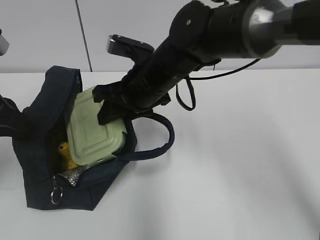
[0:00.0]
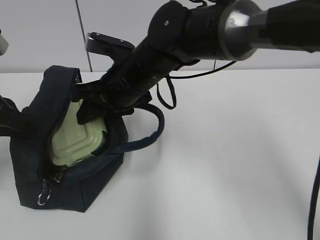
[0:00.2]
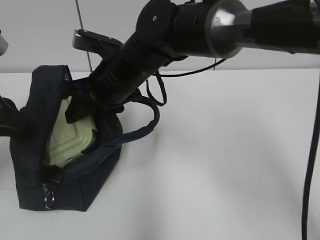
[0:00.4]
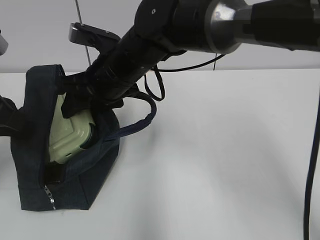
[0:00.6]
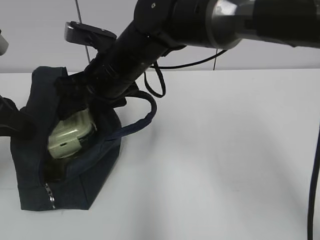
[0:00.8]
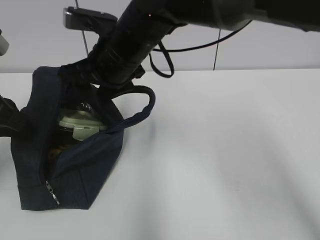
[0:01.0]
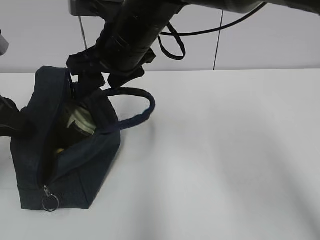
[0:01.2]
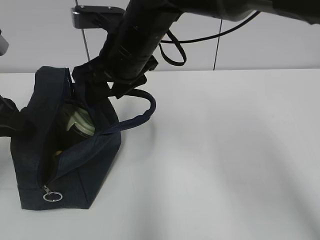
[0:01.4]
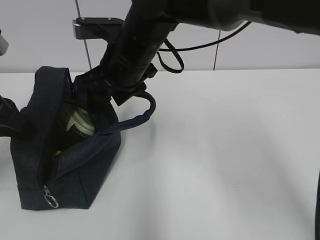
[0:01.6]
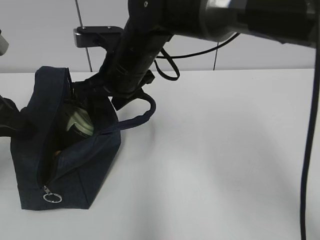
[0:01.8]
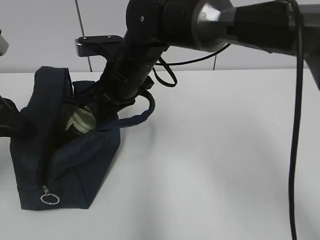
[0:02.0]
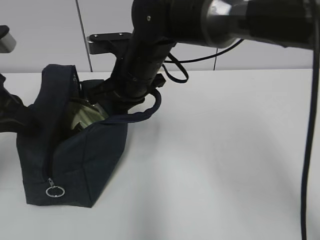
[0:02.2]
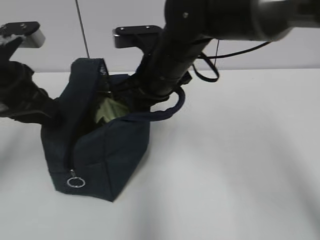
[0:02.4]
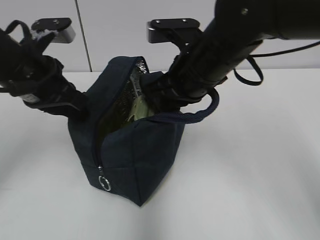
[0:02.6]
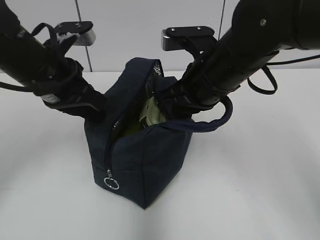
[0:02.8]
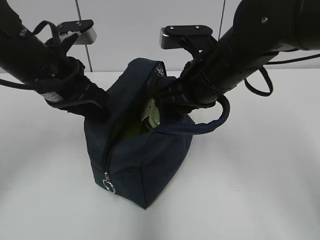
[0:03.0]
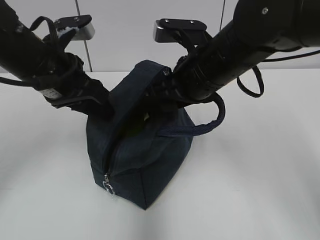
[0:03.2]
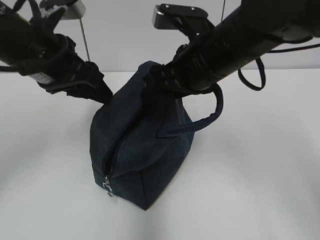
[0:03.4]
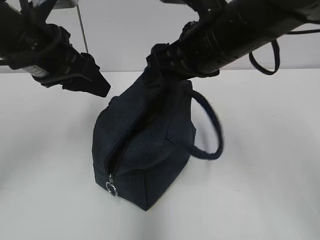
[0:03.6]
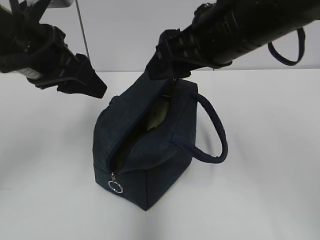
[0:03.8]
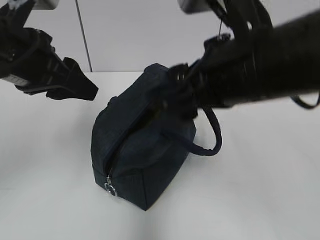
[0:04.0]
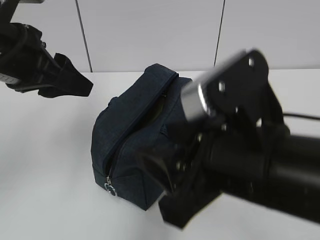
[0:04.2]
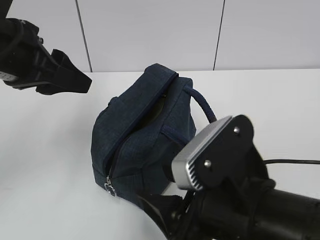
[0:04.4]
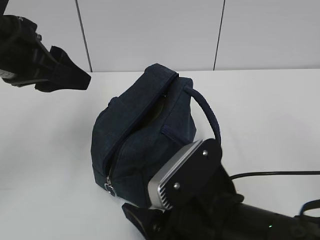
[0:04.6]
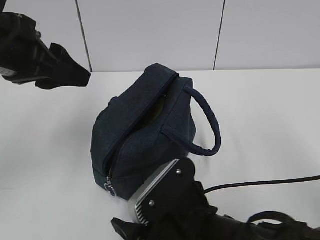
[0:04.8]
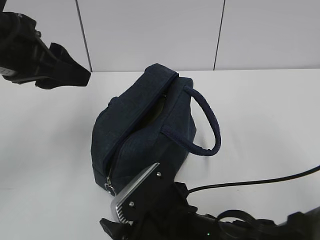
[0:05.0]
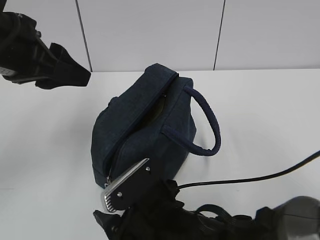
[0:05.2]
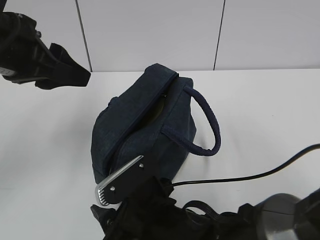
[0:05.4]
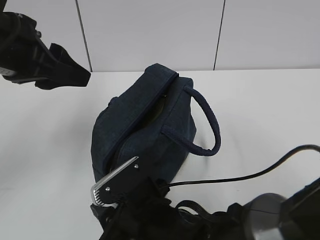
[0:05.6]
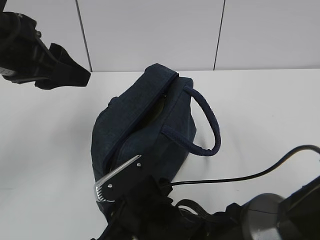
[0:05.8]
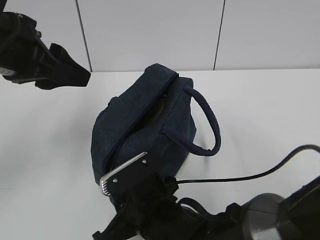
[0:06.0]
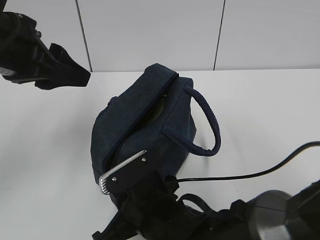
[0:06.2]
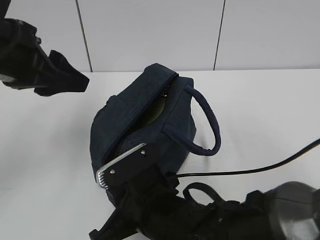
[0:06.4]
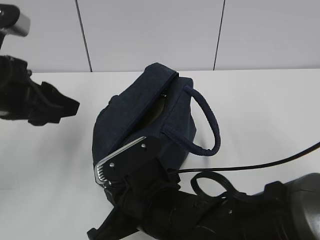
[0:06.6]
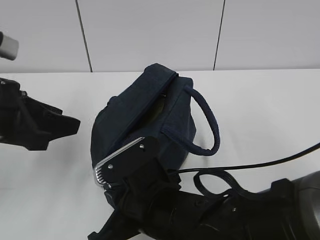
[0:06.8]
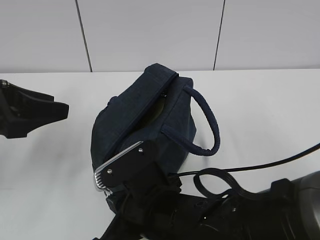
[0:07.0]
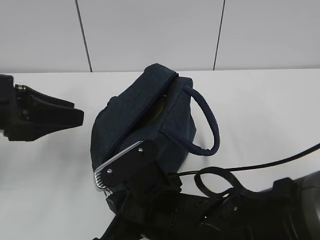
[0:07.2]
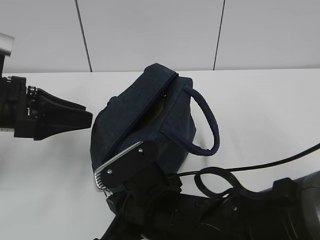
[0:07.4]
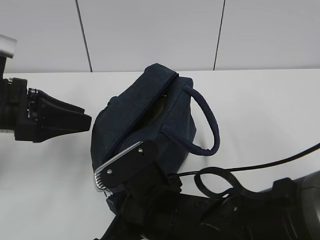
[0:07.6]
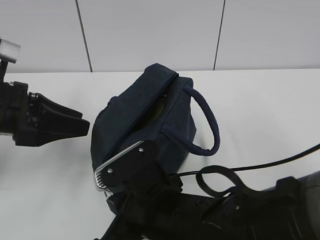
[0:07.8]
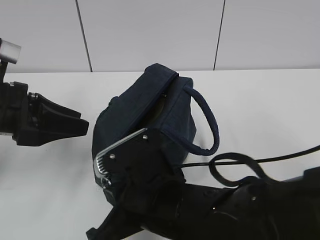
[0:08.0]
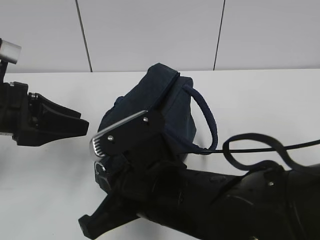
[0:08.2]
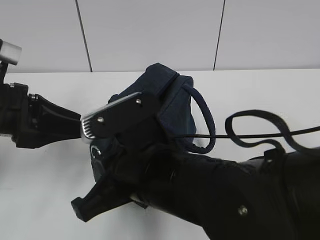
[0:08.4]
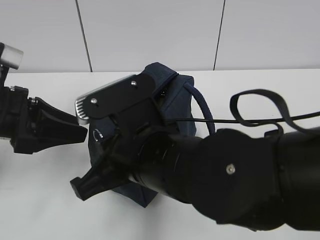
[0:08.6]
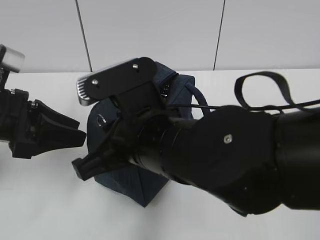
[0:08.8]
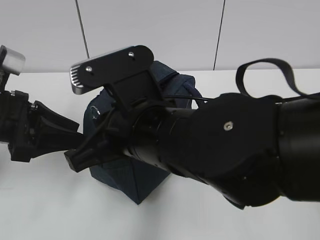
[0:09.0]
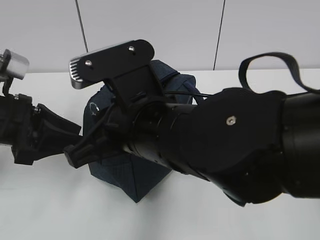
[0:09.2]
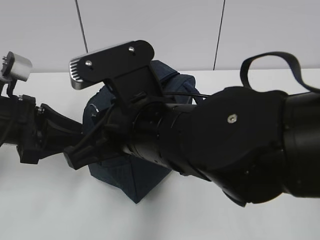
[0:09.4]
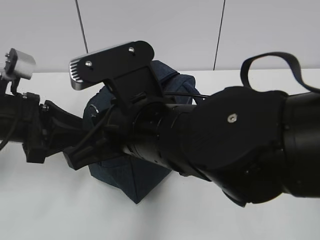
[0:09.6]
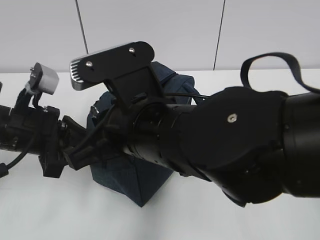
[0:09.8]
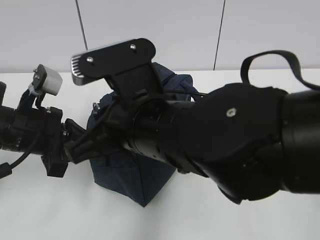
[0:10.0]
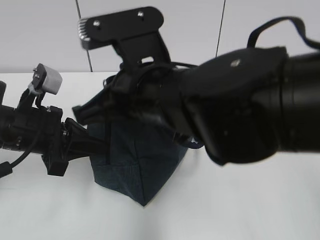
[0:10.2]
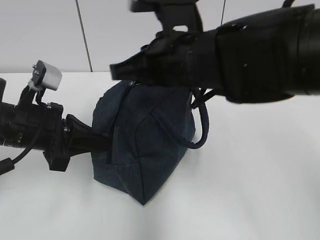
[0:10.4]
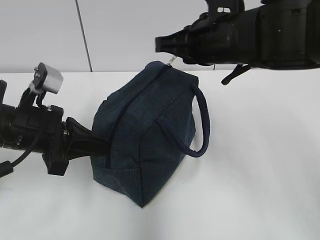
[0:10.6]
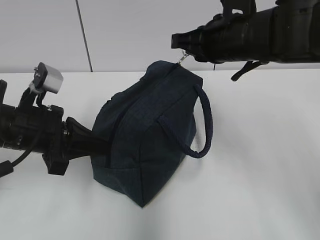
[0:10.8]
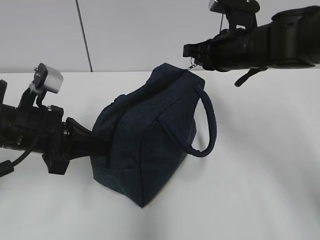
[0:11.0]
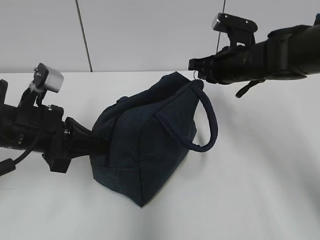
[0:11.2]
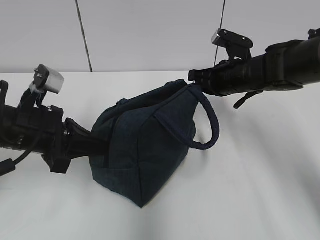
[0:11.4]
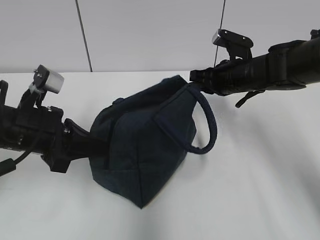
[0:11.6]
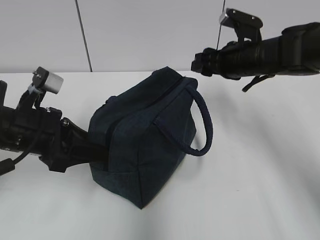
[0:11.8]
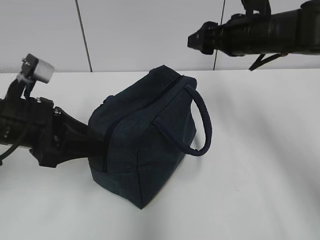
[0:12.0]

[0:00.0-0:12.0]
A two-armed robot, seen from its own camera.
1.6 to 3.0 s: The right gripper heads to the right, covering some 10 cm, and closes, then reopens, while the left gripper travels to the right and forward by some 10 cm.
3.0 to 4.4 s: The right gripper heads backward, covering approximately 20 cm. Meanwhile the left gripper travels upward and backward by approximately 10 cm, and opens its fingers.
4.4 to 6.0 s: The right gripper travels downward, to the left and forward by roughly 15 cm, and closes up.
6.0 to 7.6 s: The left gripper shifts approximately 10 cm downward.
7.6 to 9.0 s: The right gripper is displaced upward by some 10 cm.
9.0 to 10.4 s: The left gripper closes up. Meanwhile the right gripper is displaced forward and to the right by roughly 10 cm.
10.4 to 12.0 s: The left gripper opens, while the right gripper shifts about 15 cm to the right and forward, and opens.

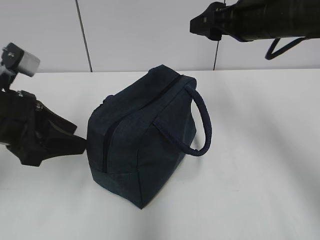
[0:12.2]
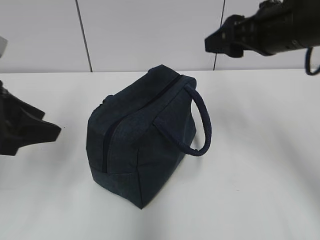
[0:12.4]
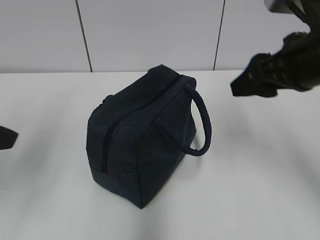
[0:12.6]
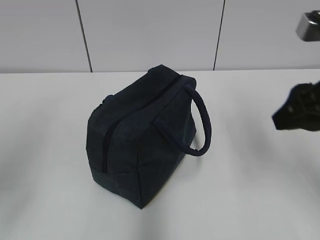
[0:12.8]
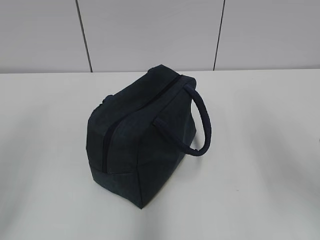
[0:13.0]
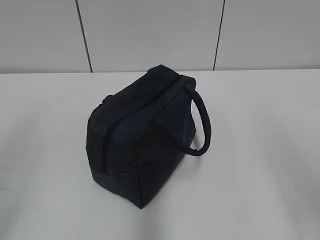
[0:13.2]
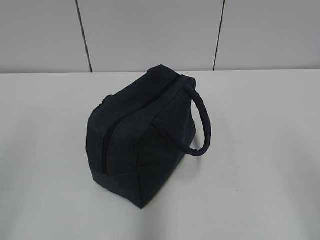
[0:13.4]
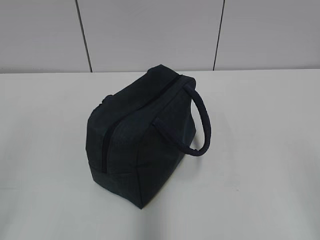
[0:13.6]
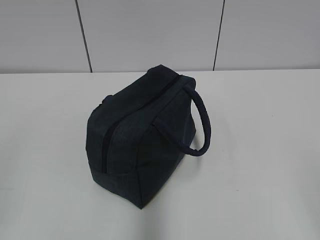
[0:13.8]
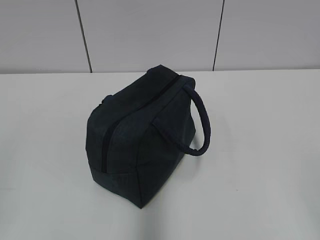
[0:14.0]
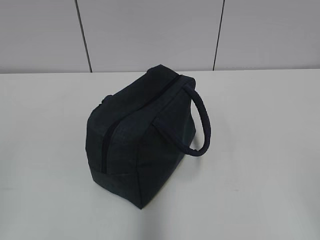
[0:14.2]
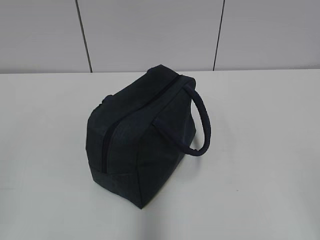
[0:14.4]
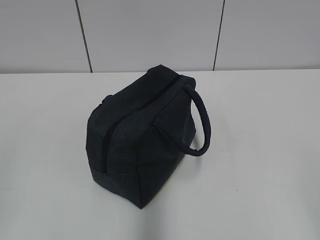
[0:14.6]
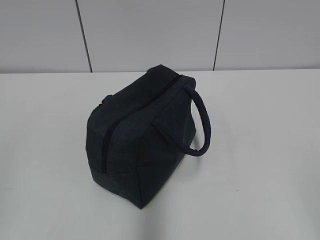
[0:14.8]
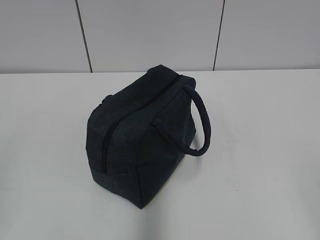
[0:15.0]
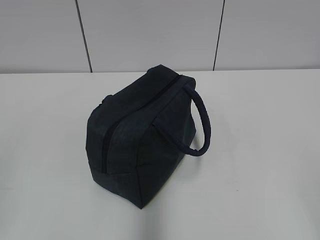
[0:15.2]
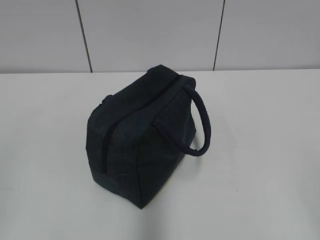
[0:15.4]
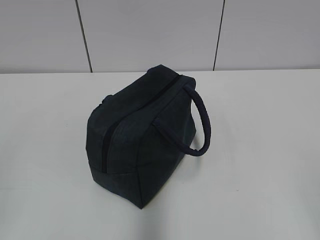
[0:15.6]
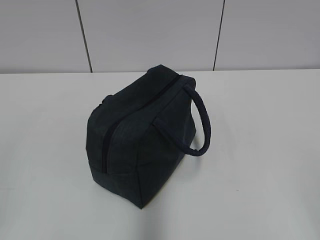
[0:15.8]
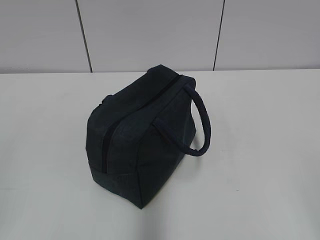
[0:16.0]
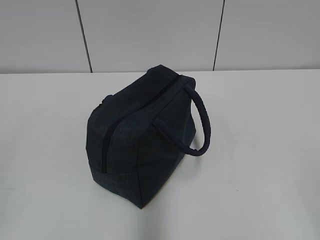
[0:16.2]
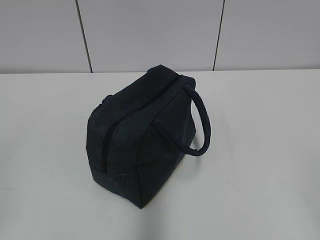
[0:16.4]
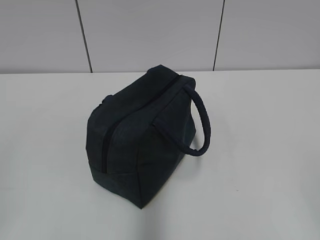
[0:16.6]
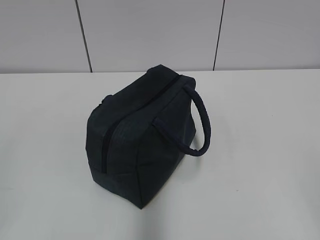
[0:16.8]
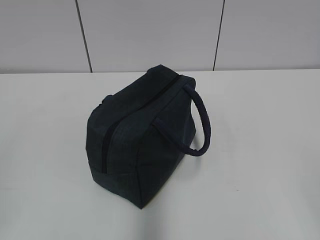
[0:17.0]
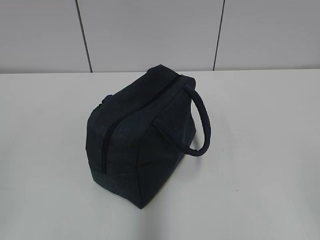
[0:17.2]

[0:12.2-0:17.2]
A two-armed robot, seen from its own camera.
12.2 to 13.8 s: The left gripper travels backward and to the left by approximately 25 cm. The right gripper goes about 35 cm backward.

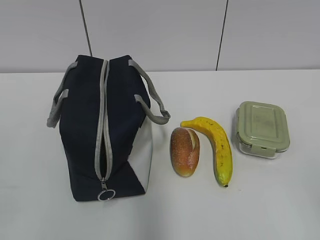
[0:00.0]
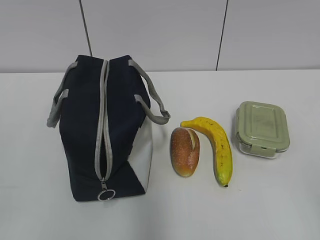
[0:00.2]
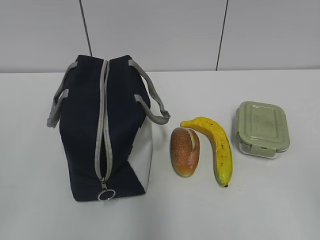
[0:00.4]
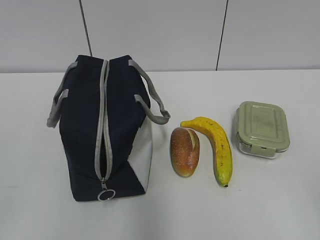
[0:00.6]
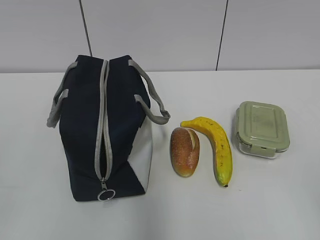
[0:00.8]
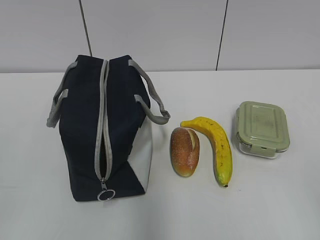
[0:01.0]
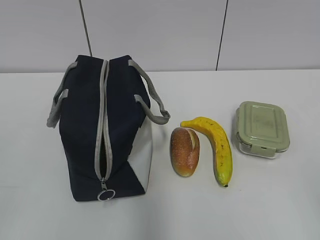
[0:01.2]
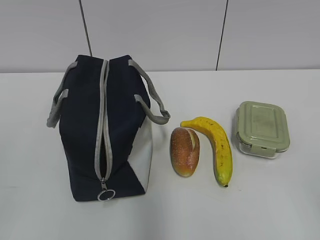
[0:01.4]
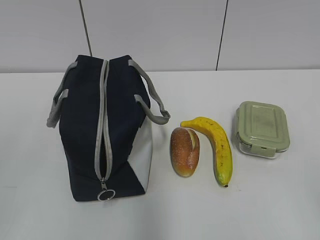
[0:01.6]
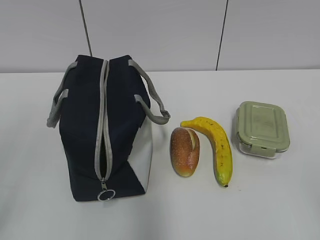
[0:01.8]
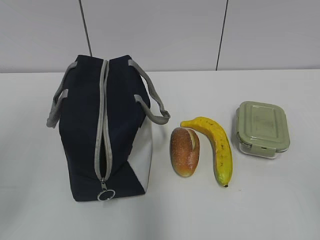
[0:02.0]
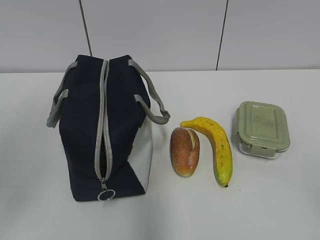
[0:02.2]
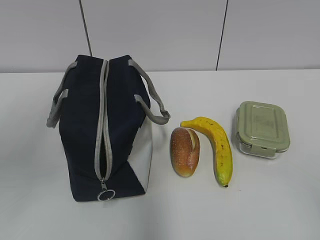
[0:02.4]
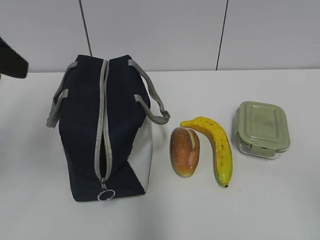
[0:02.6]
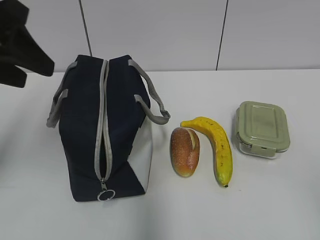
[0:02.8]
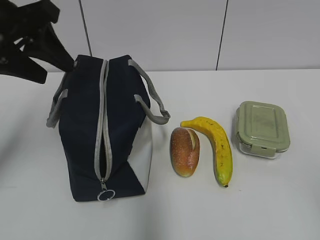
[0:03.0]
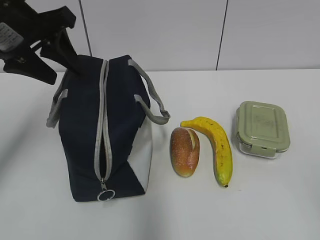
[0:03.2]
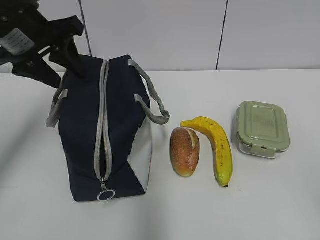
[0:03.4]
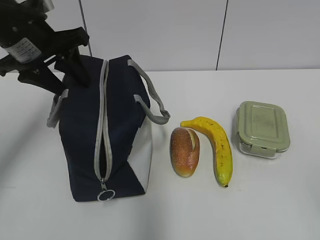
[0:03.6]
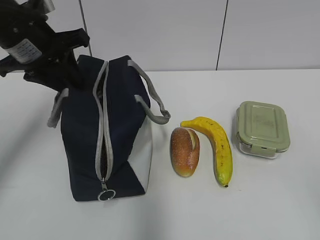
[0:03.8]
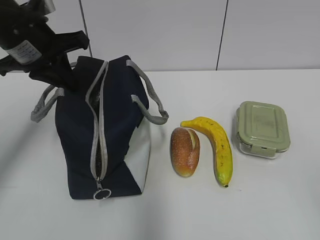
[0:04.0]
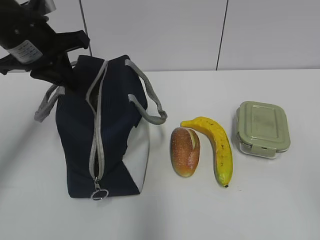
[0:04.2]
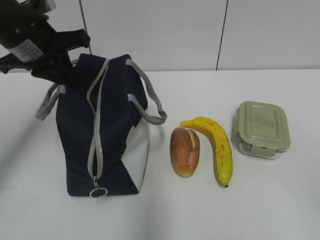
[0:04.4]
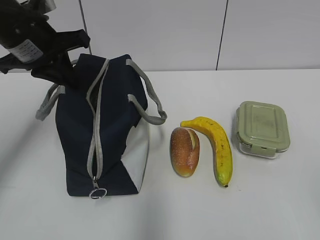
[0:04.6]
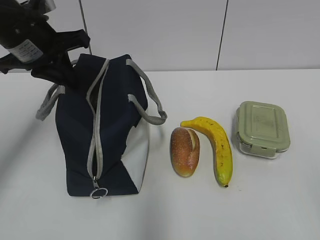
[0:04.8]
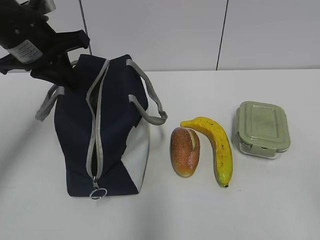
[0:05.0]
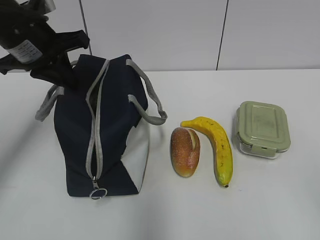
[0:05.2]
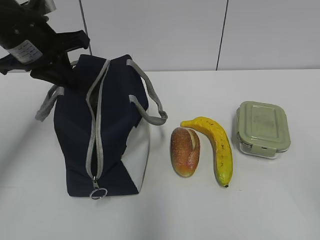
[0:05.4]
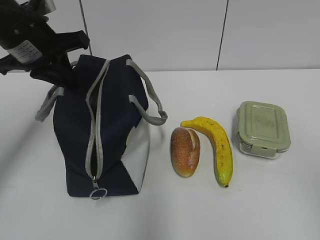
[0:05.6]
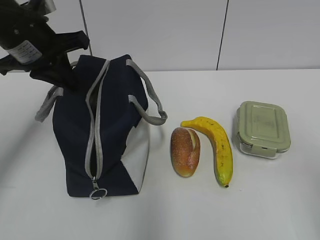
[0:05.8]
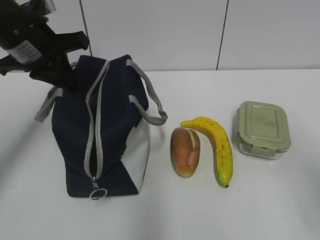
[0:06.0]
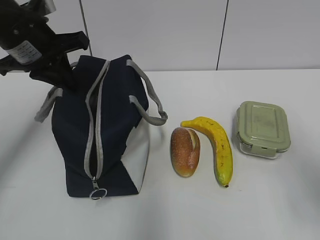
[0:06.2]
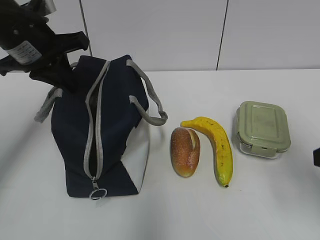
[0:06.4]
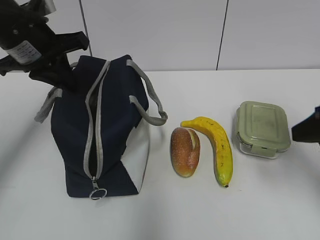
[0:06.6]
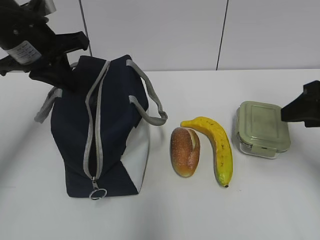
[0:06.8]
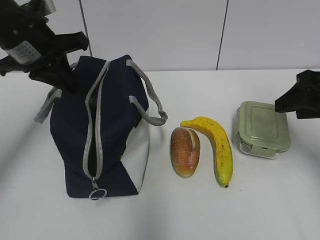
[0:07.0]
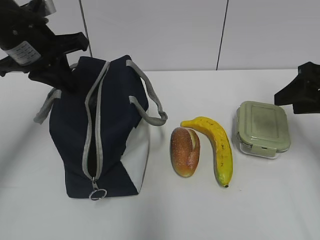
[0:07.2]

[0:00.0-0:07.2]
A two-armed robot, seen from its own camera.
1.4 to 2.8 s: The left gripper goes approximately 25 cm forward, and opens its fingers.
2.8 to 4.4 s: The left gripper goes about 10 cm forward and downward, and closes its fingers.
5.8 to 7.2 s: The right gripper travels forward by some 25 cm.
